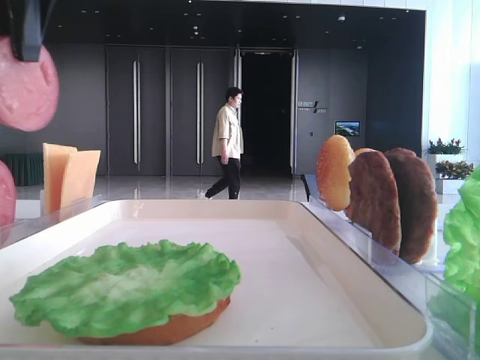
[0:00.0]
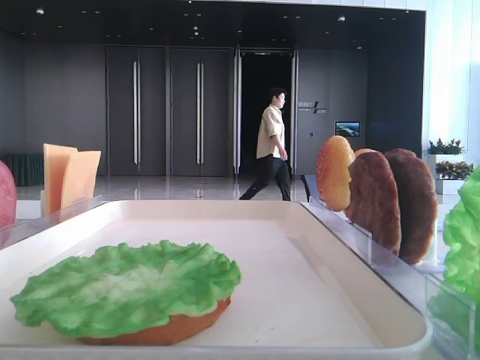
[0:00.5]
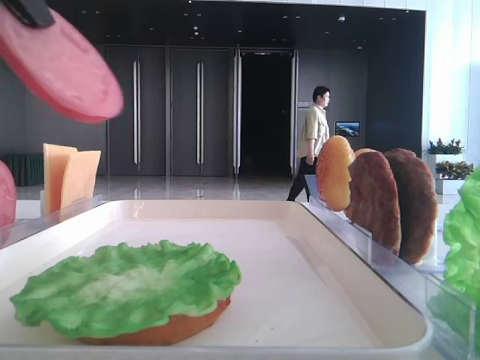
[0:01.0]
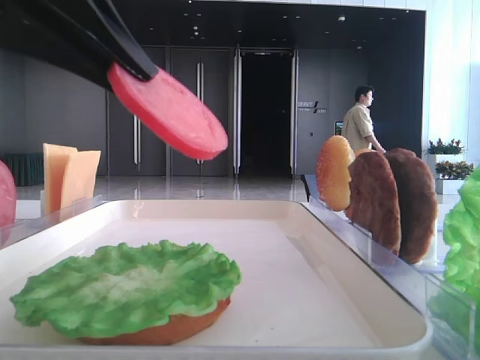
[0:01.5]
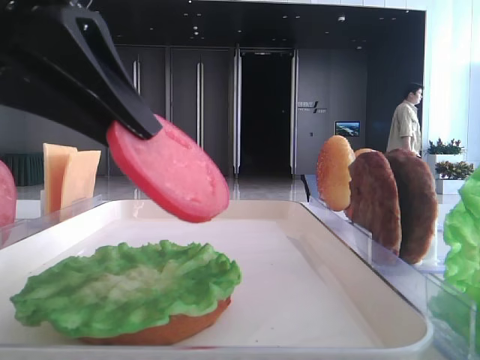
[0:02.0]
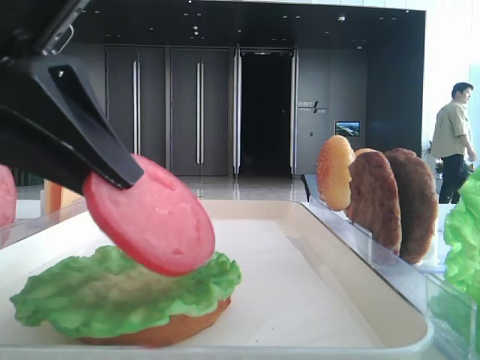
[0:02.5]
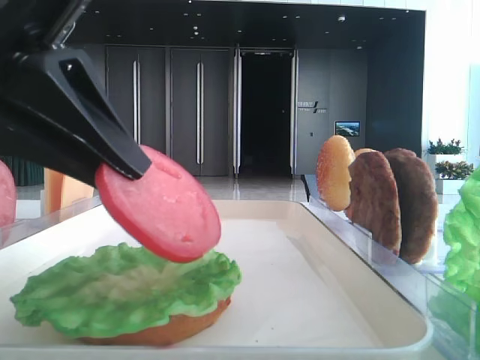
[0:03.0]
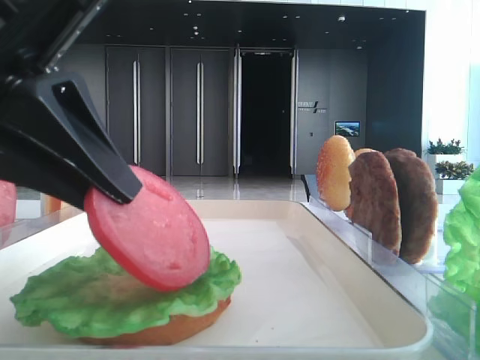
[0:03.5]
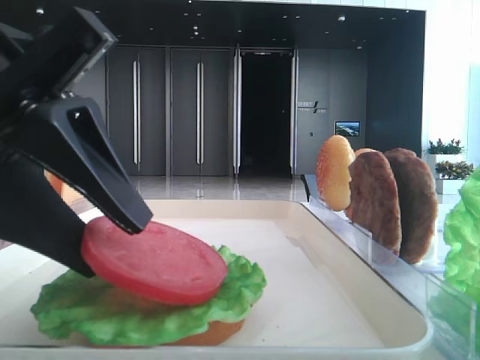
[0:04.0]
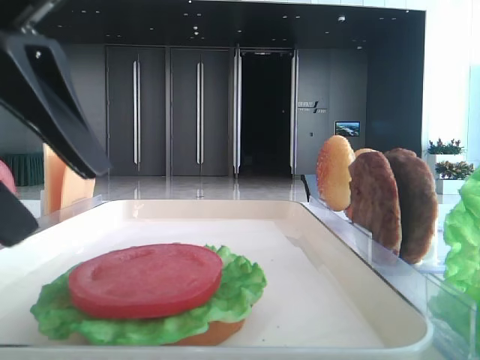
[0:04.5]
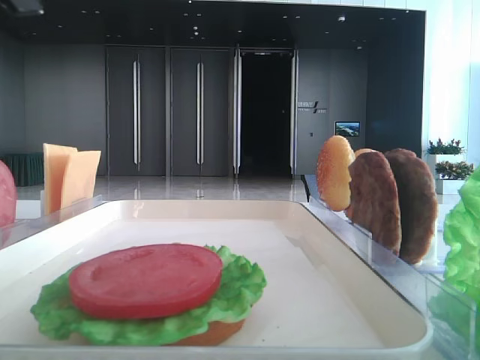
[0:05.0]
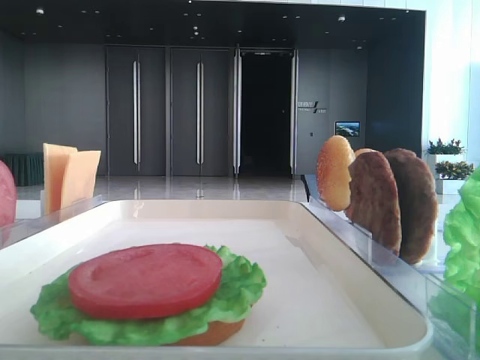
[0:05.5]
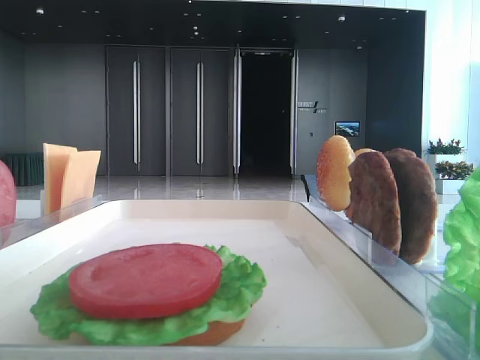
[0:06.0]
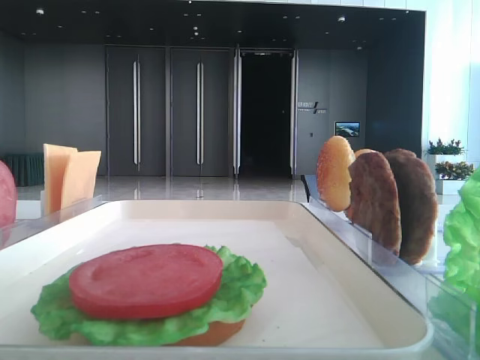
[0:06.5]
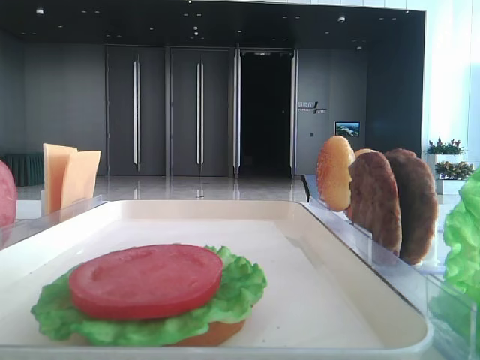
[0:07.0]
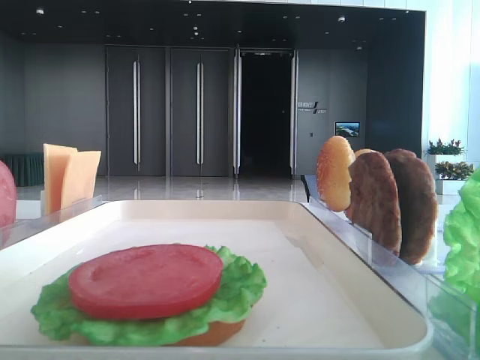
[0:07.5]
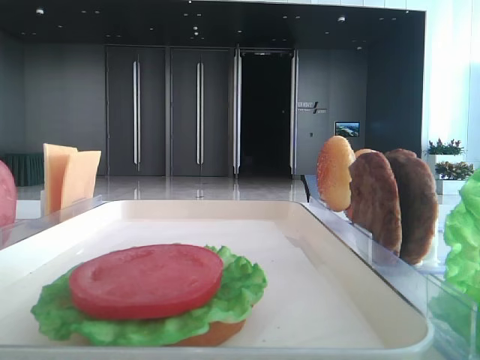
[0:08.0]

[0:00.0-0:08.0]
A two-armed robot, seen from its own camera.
Step, 0:00.0 to 0:04.0: Place the tomato slice on the lettuce leaf with the left hand.
0:00.0 to 0:02.0: The left gripper shifts roughly 15 cm downward and backward.
0:02.0 to 0:04.0: The left gripper heads downward, covering approximately 5 cm, and opens its fingers.
0:04.0 to 0:06.0: The left gripper shifts roughly 20 cm to the left and upward, and opens.

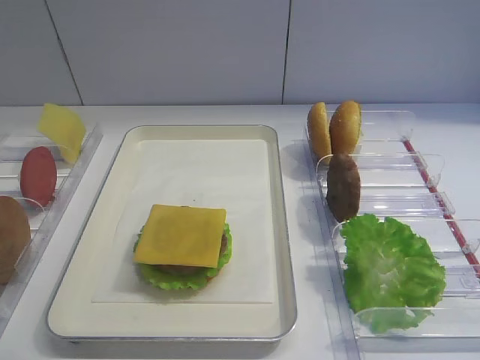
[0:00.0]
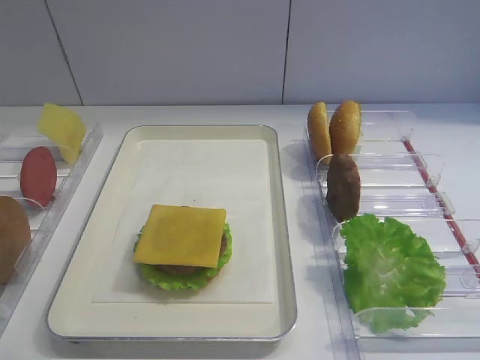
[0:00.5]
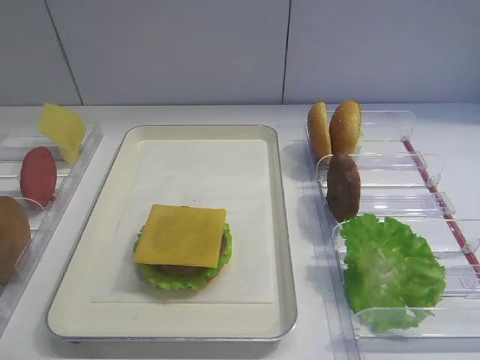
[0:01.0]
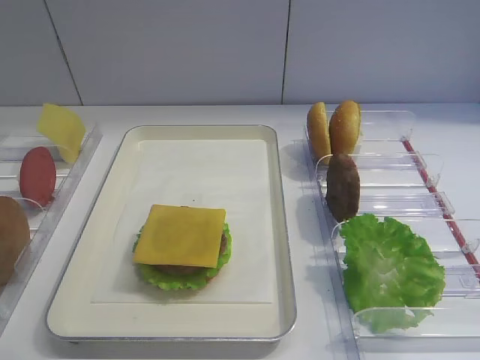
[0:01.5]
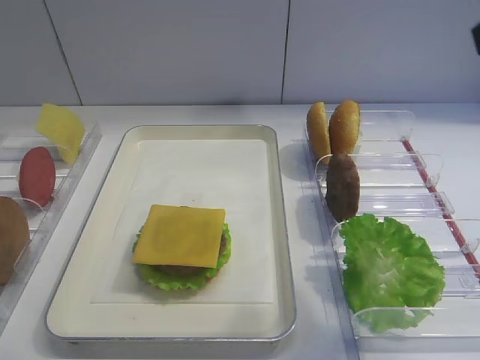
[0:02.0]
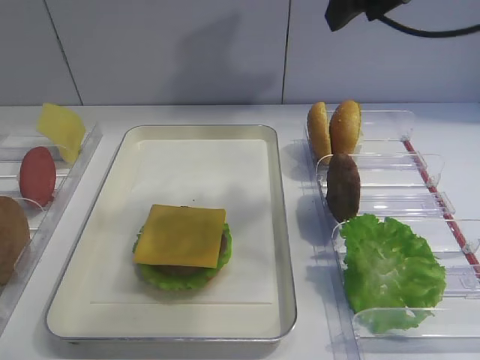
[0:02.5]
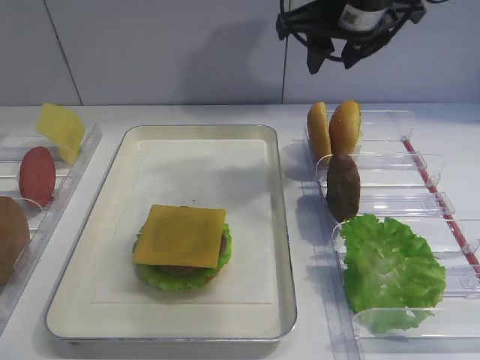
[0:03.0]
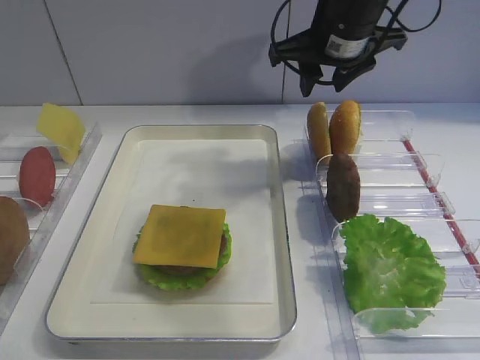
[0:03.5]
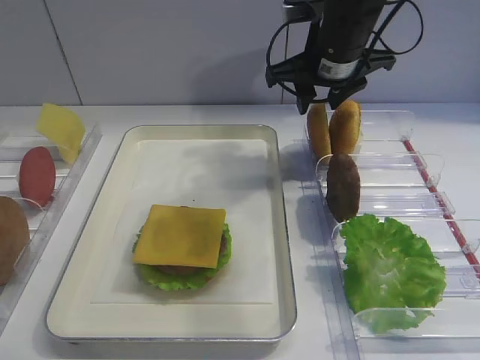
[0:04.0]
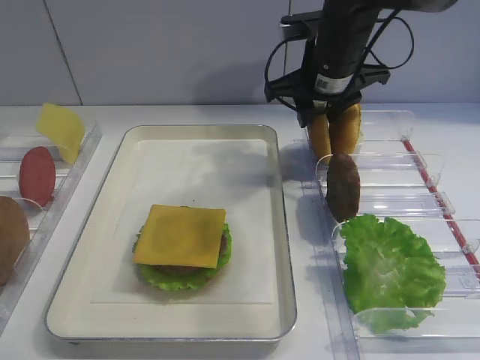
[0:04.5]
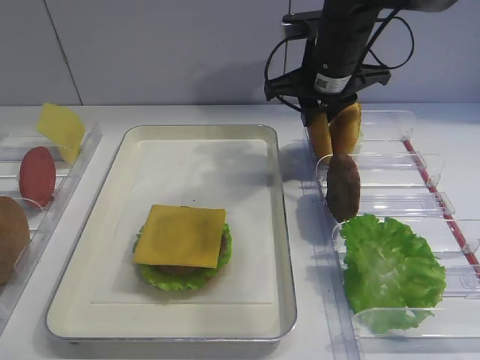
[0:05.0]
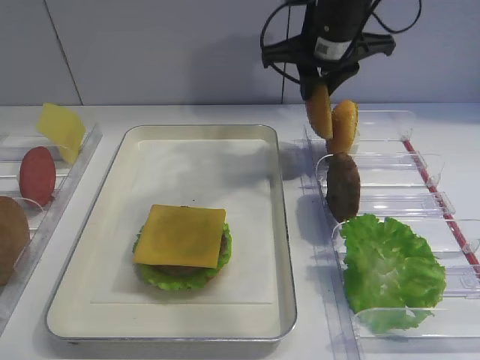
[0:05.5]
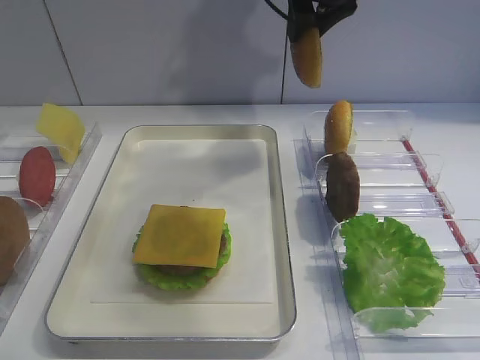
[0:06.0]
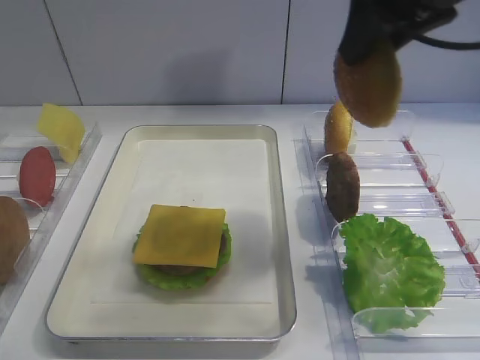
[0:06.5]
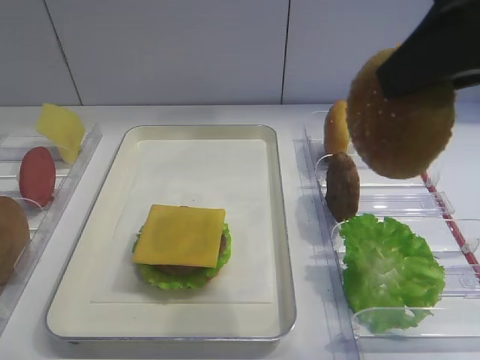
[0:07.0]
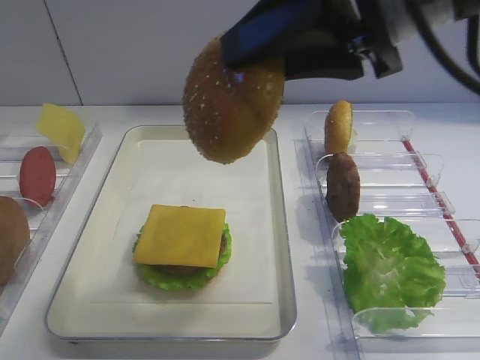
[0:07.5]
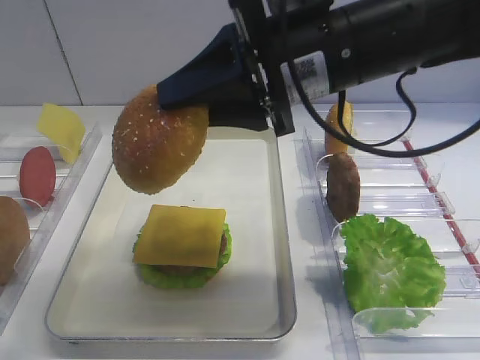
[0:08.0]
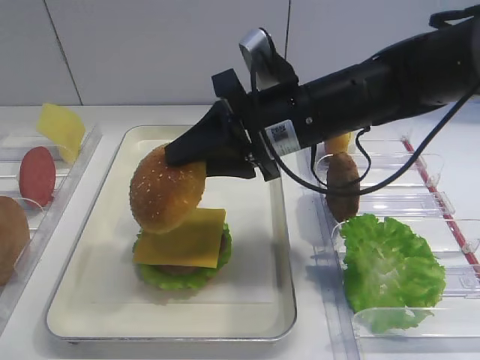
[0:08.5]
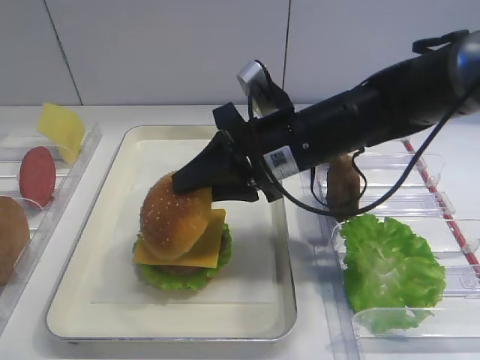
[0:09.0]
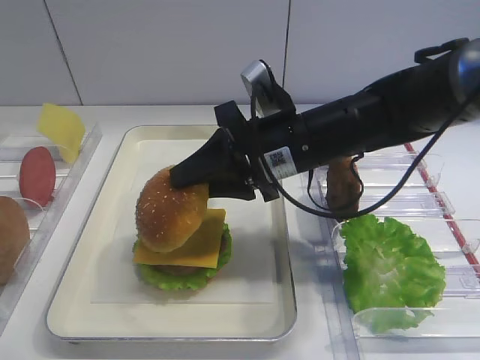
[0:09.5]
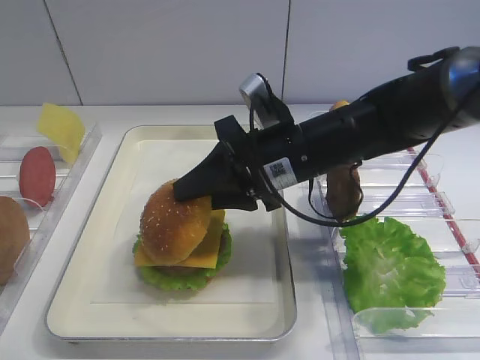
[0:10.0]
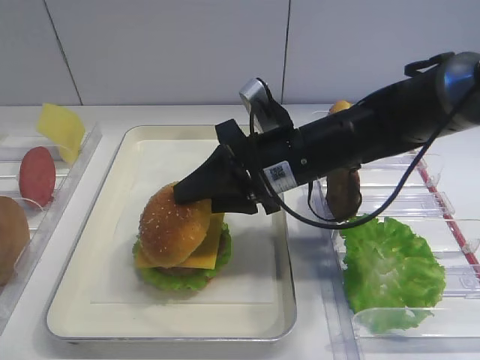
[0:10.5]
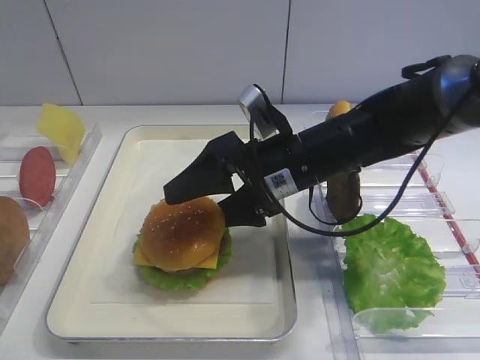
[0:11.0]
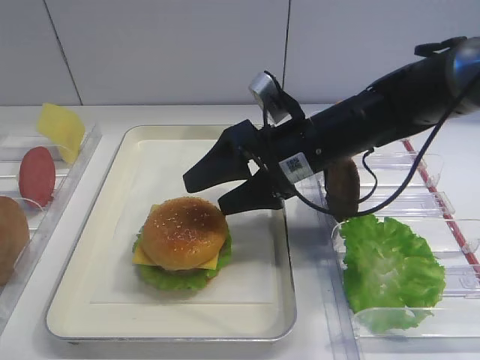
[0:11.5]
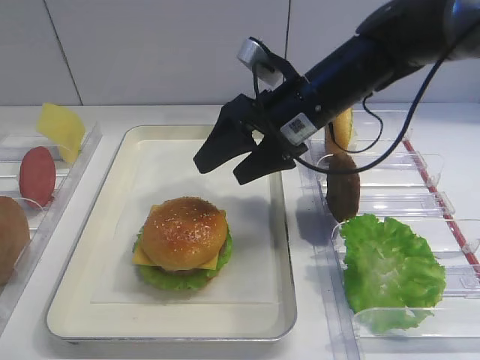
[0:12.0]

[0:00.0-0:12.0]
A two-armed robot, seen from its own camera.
Step, 0:00.0 to 0:05.5: Pick up the hamburger lid with the right gripper.
0:02.0 to 0:04.0: The right gripper is displaced forward, to the left and downward by some 30 cm.
0:04.0 to 0:06.0: The right gripper travels upward by roughly 10 cm.
0:06.0 to 0:08.0: The right gripper shifts approximately 15 cm backward.
0:08.0 to 0:10.0: The right gripper moves downward, some 10 cm.
0:10.0 to 0:12.0: The right gripper opens its fingers.

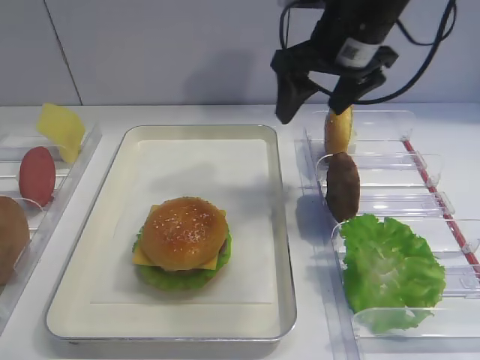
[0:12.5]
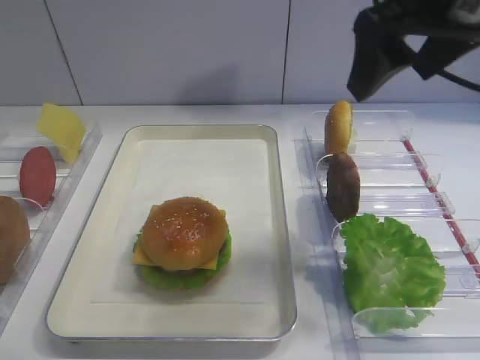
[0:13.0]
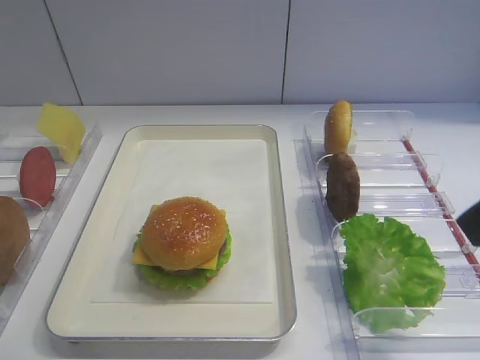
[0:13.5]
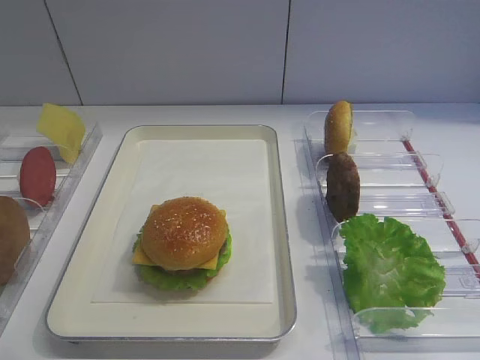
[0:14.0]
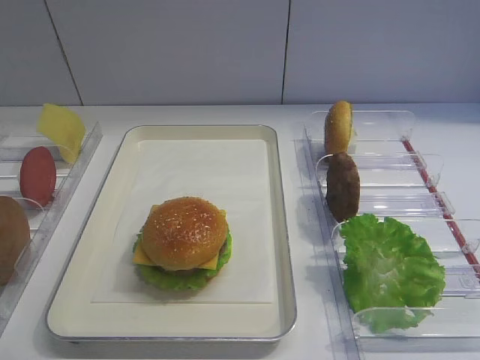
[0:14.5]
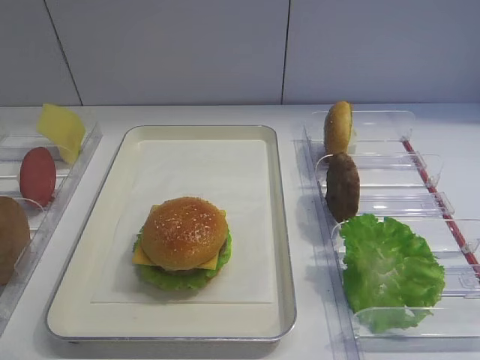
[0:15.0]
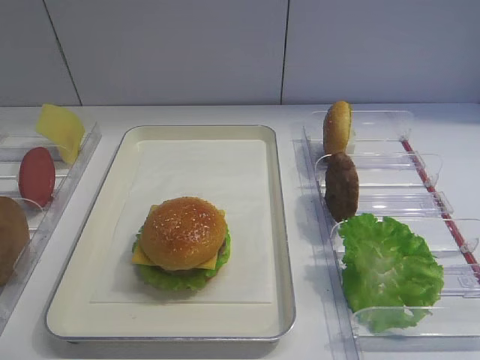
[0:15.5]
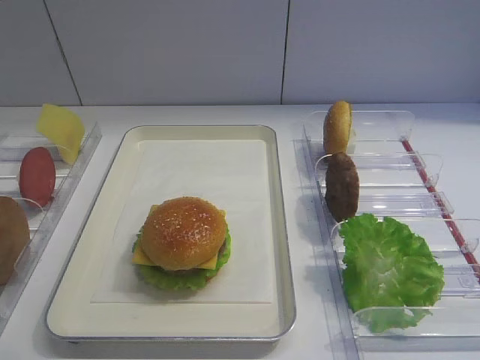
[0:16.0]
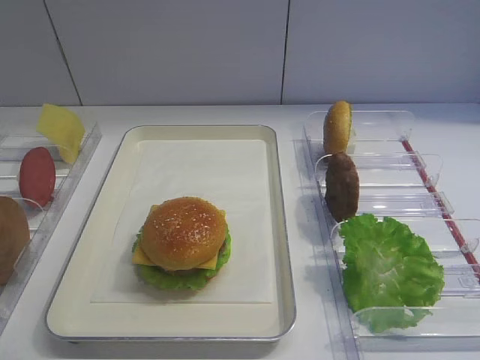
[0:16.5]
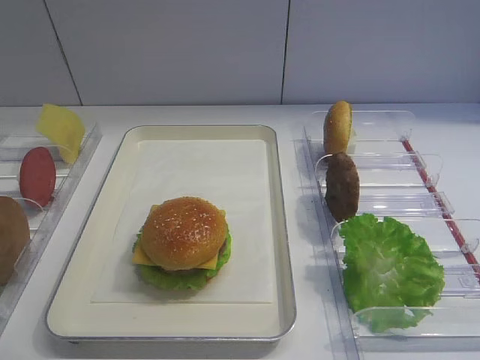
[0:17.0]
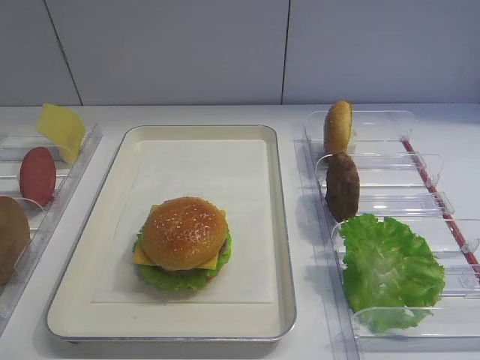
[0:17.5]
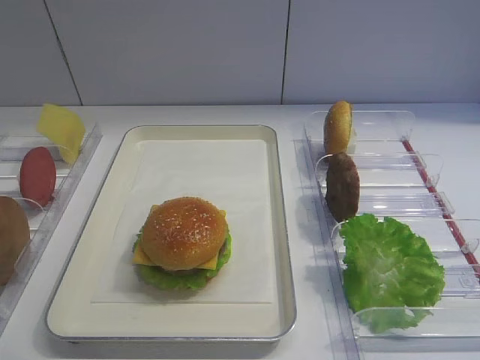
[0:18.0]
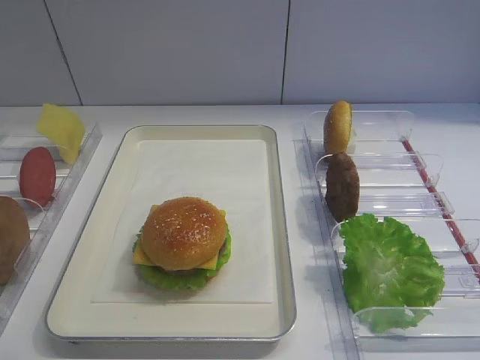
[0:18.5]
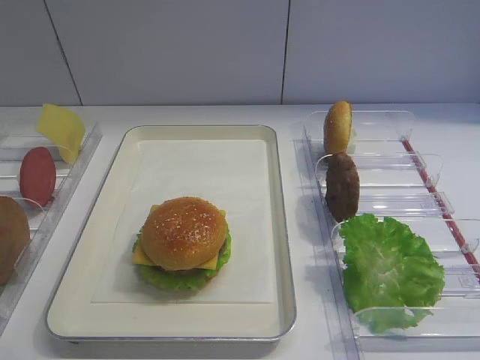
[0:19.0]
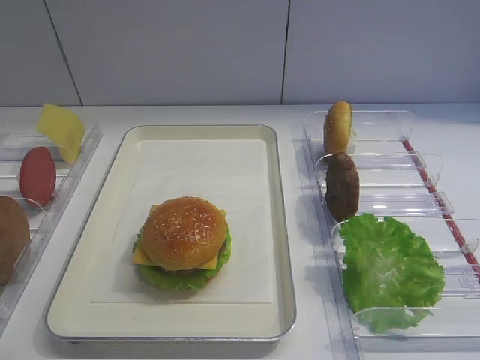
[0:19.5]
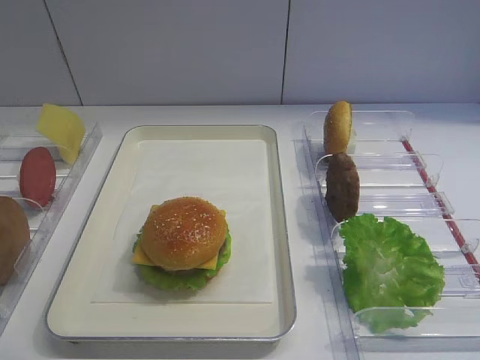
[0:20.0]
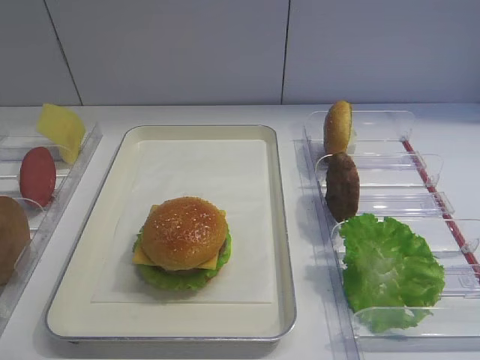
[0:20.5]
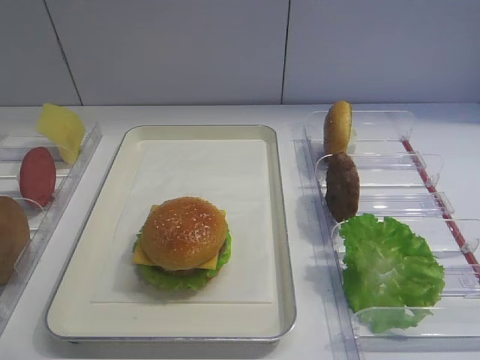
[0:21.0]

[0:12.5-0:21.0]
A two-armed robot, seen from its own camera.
0:12.5 to 0:14.5: The right gripper goes approximately 40 cm backward and to the right.
0:16.5 to 0:21.0: The two grippers keep their place.
